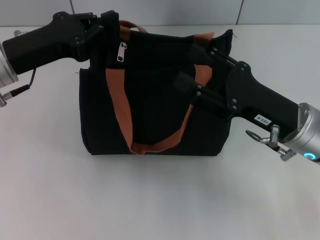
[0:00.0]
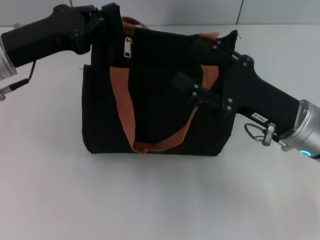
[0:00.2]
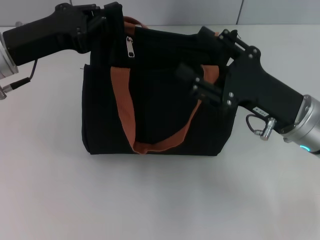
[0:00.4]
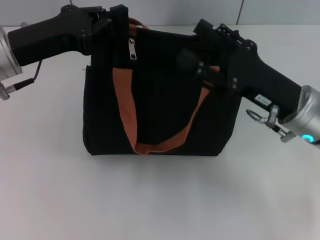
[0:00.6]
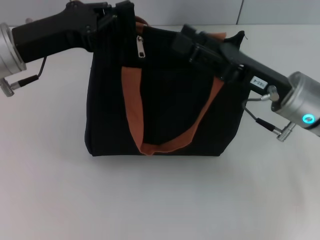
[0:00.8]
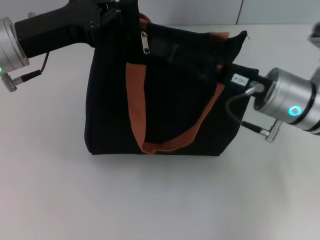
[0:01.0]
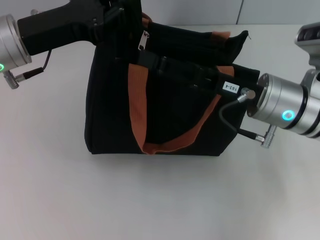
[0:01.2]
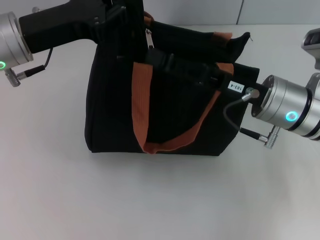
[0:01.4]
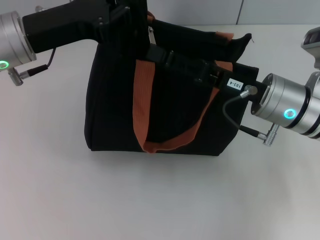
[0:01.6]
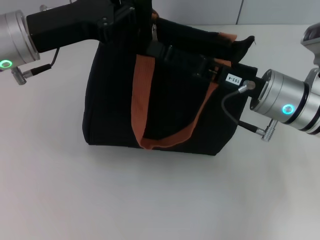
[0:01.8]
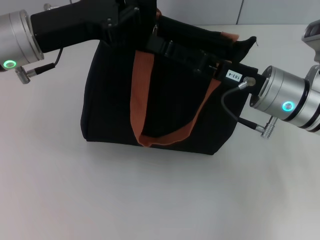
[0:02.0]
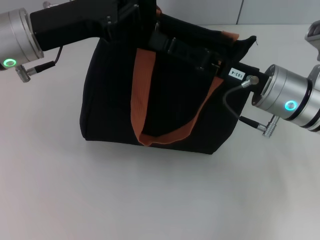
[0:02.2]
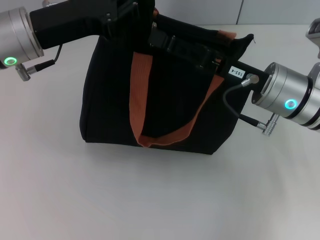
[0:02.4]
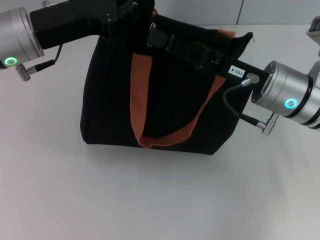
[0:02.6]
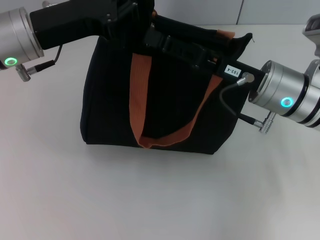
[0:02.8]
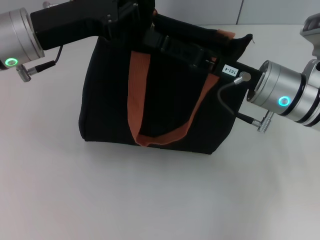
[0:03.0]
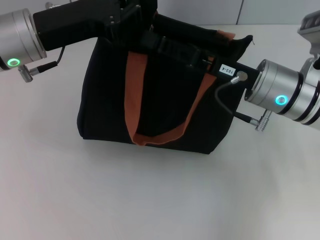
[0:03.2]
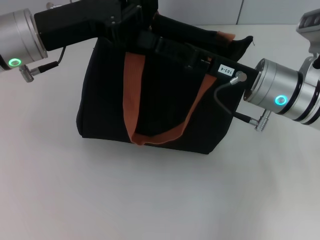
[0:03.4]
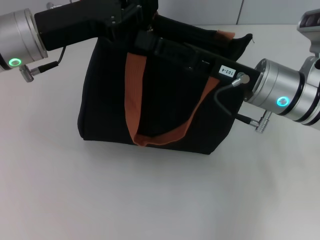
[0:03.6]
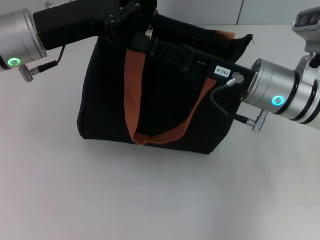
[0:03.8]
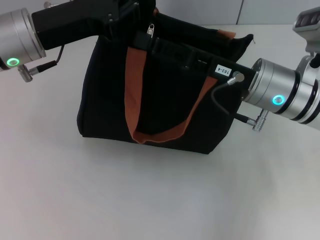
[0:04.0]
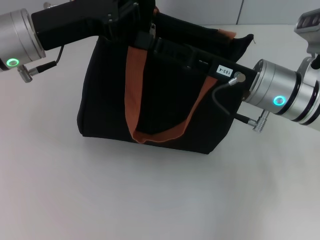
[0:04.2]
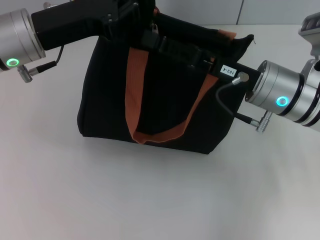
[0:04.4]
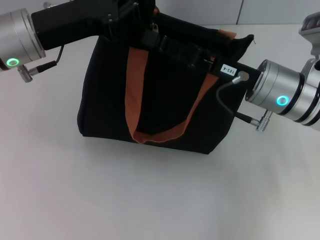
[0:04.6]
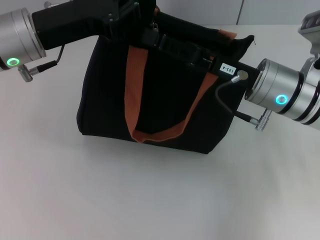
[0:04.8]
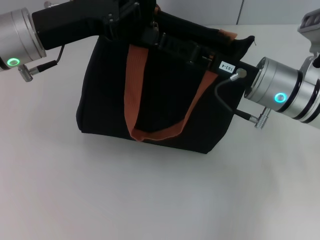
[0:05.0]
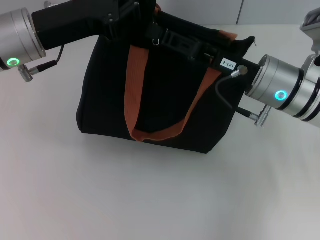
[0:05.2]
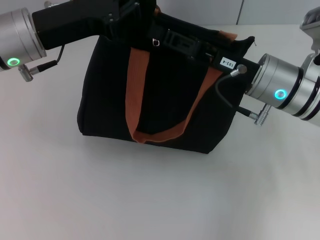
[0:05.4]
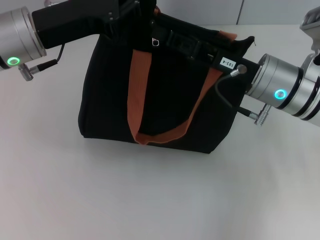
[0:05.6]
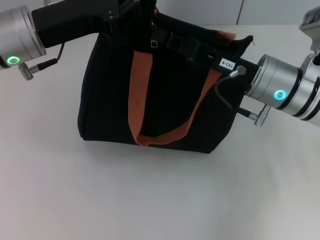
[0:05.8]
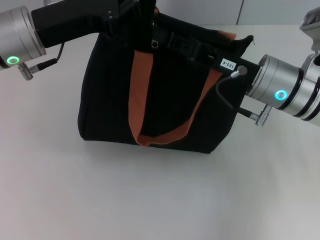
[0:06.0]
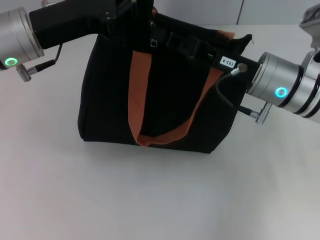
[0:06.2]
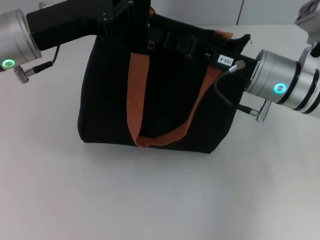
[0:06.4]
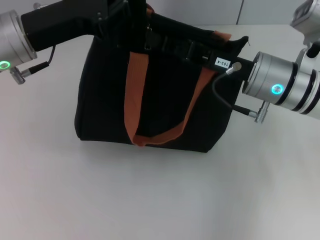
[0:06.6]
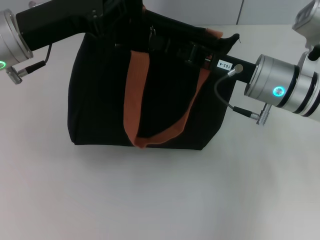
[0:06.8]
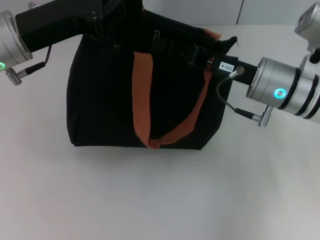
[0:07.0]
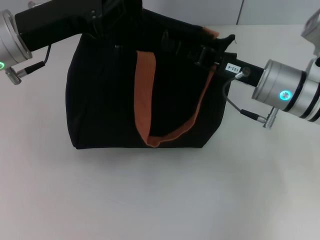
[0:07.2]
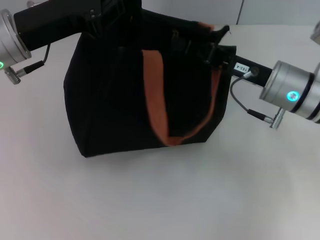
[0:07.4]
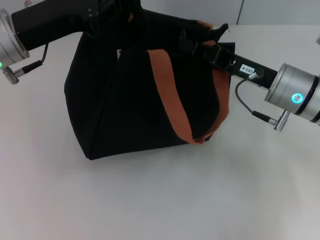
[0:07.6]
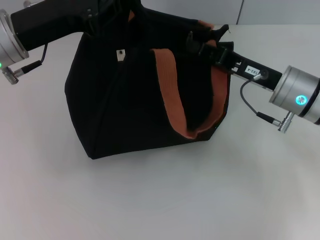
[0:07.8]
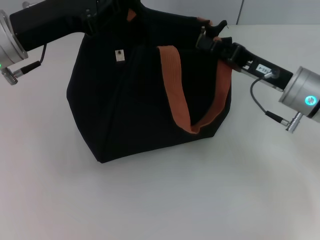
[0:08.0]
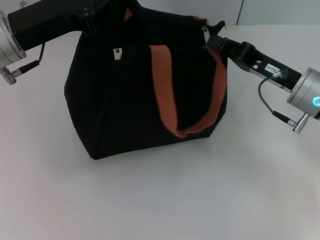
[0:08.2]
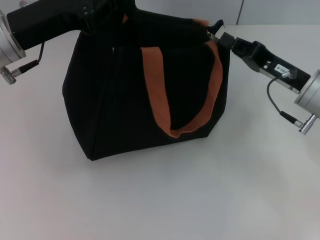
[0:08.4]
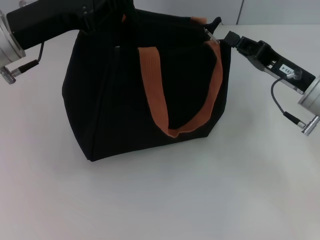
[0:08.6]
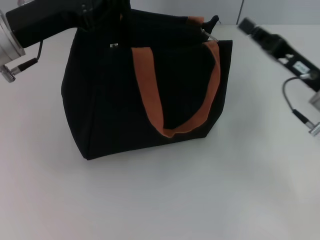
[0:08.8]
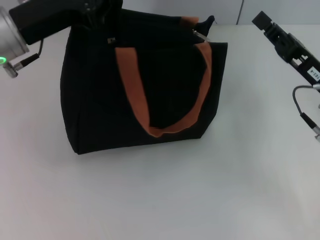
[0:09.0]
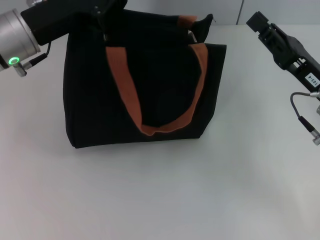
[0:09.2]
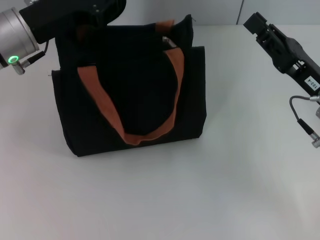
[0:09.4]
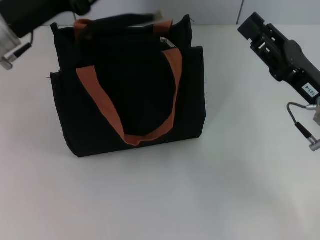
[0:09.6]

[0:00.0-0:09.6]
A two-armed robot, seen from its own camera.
Step, 0:00.0 to 0:08.6: Pull up the zipper with your right hand.
Step, 0:08.8 to 0:09.6: Grab the zipper with your left hand.
0:00.0 to 0:01.6: The right gripper moves approximately 5 cm.
0:01.6 to 0:03.2: The grippers move only a little.
0:03.2 to 0:04.8: The two grippers keep their place.
0:04.8 to 0:06.4: The right gripper closes up.
0:06.4 to 0:08.0: The right gripper is displaced to the right by about 5 cm.
0:08.0 to 0:09.6: The right gripper is displaced backward by approximately 5 cm, and opens its fingers.

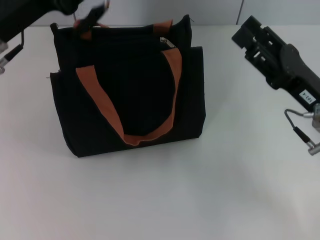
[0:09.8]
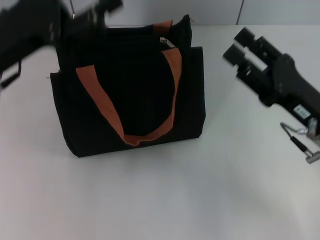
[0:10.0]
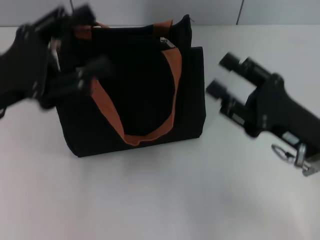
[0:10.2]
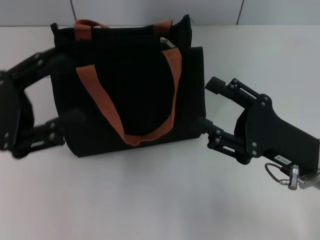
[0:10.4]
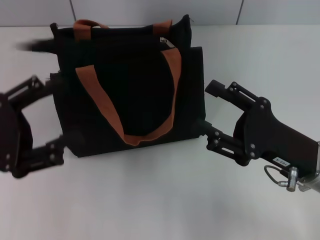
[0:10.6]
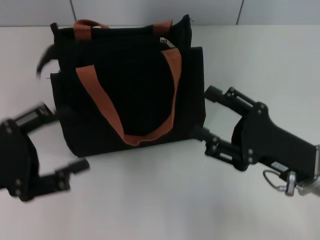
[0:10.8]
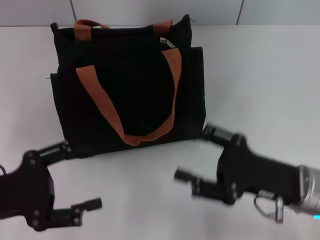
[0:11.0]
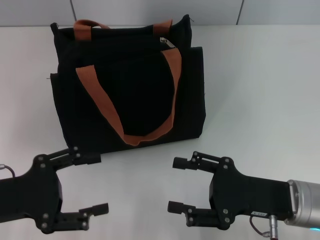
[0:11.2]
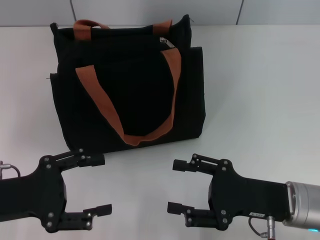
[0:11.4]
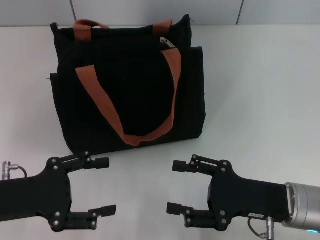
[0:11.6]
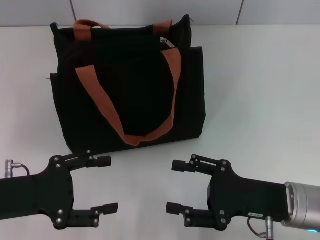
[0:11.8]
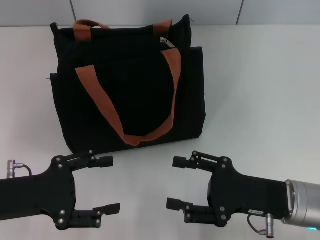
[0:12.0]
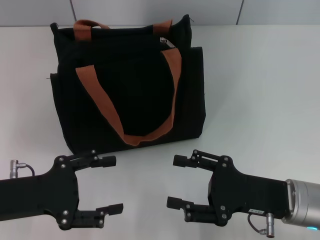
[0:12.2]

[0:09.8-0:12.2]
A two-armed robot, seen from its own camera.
0:09.8 to 0:11.0: The left gripper travels backward and downward by approximately 15 cm, and opens. The right gripper is displaced backward by some 5 cm, and opens.
0:11.0 to 0:12.2: There are only small adjustments of the grippers.

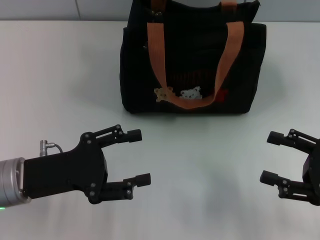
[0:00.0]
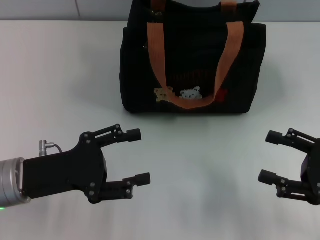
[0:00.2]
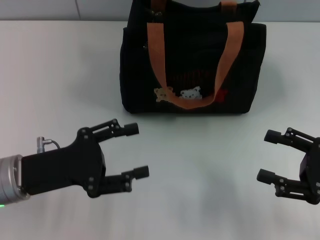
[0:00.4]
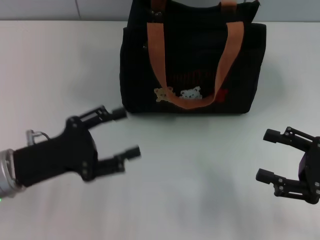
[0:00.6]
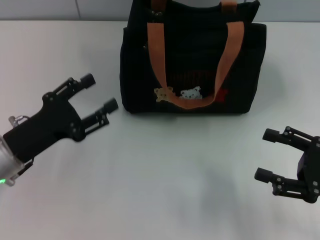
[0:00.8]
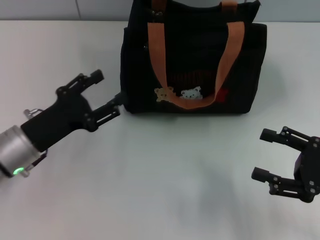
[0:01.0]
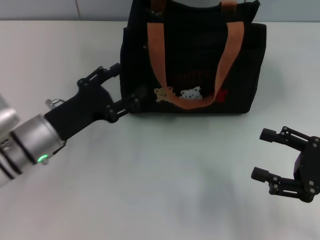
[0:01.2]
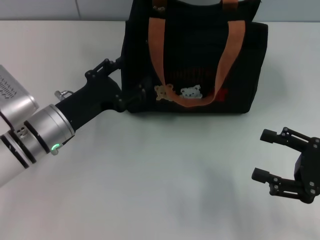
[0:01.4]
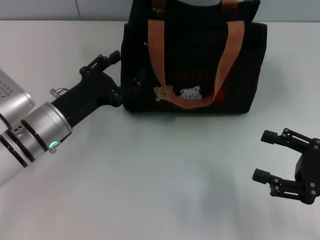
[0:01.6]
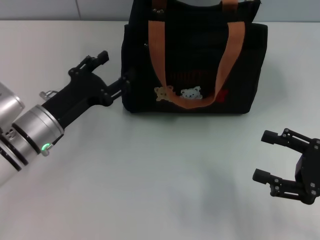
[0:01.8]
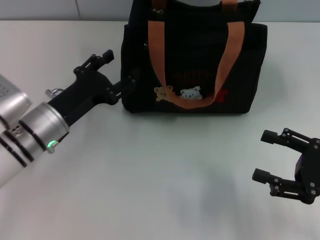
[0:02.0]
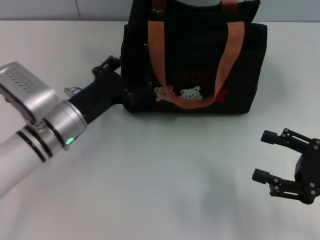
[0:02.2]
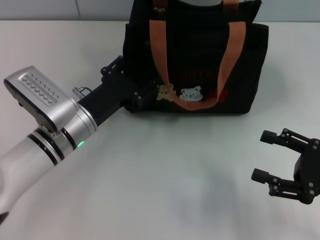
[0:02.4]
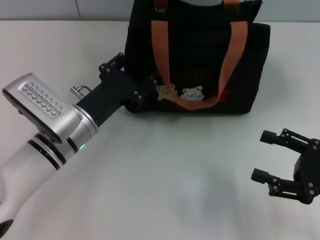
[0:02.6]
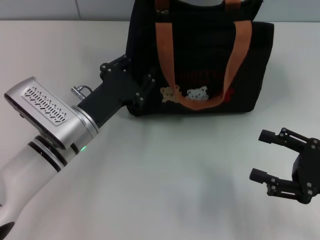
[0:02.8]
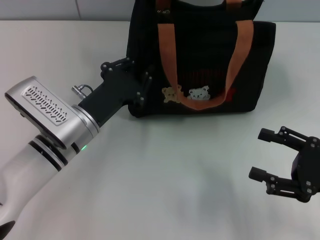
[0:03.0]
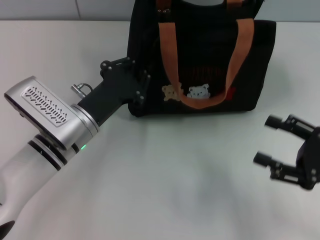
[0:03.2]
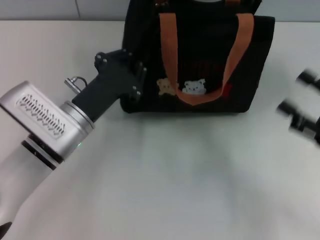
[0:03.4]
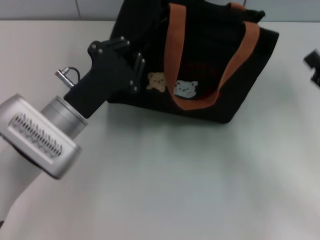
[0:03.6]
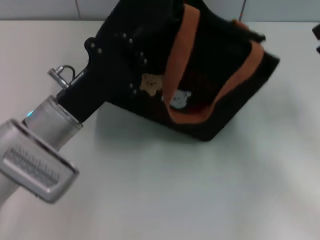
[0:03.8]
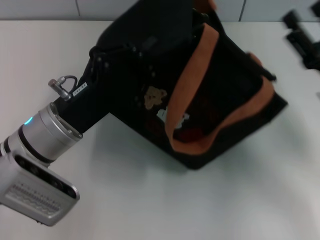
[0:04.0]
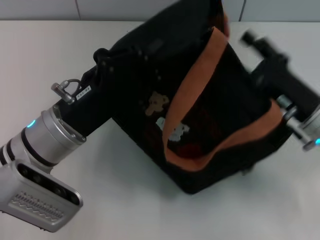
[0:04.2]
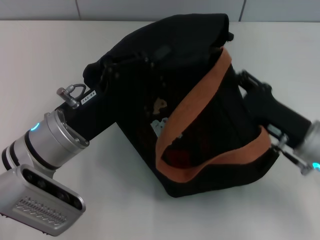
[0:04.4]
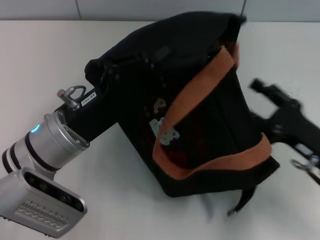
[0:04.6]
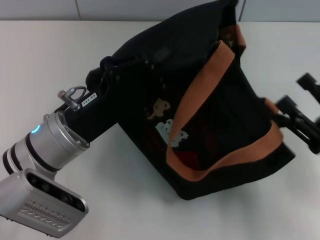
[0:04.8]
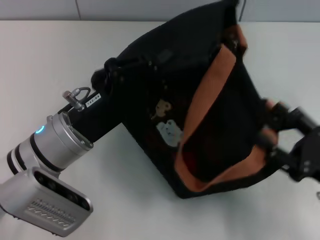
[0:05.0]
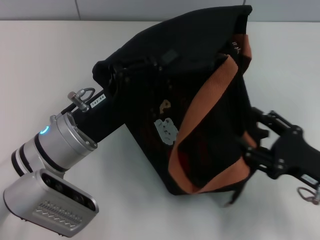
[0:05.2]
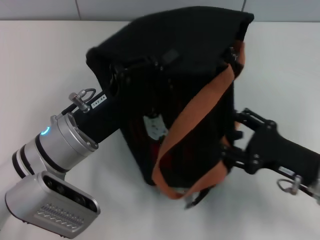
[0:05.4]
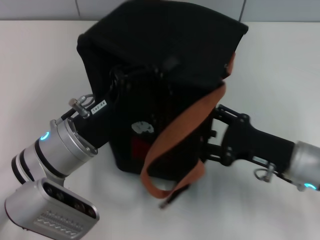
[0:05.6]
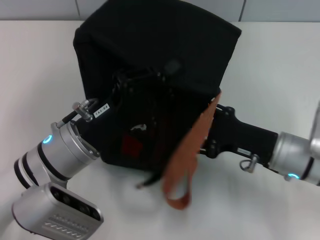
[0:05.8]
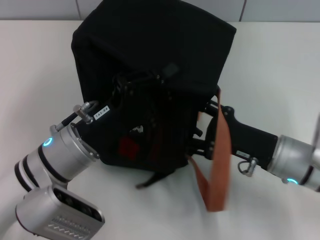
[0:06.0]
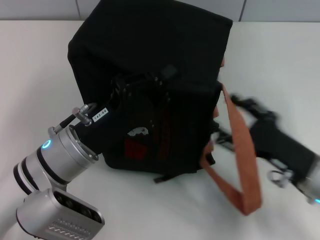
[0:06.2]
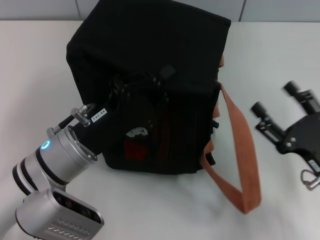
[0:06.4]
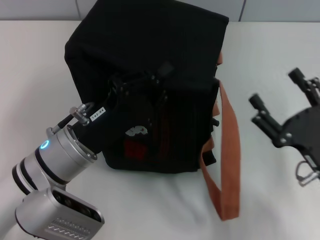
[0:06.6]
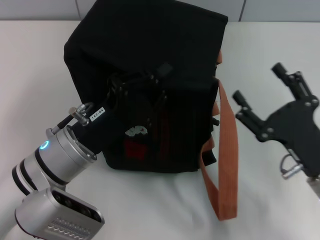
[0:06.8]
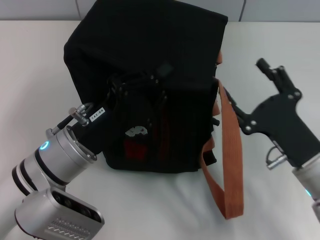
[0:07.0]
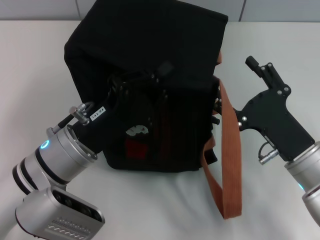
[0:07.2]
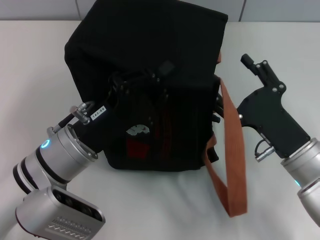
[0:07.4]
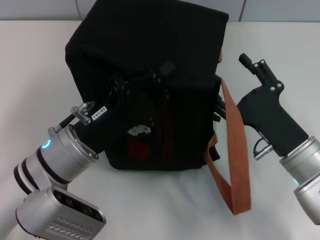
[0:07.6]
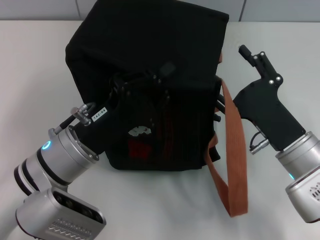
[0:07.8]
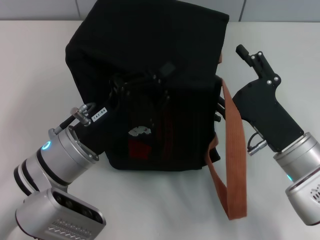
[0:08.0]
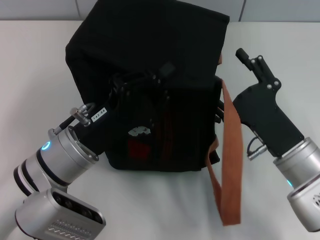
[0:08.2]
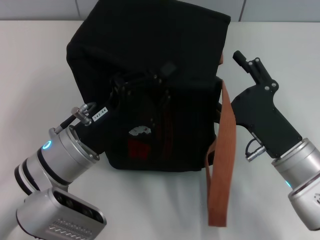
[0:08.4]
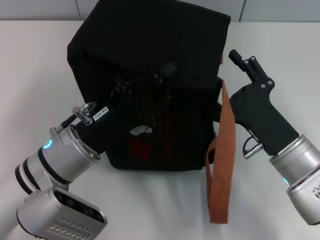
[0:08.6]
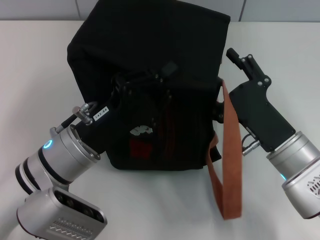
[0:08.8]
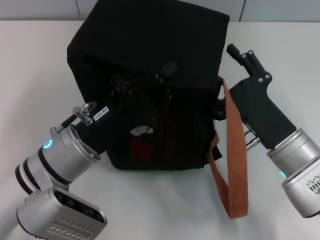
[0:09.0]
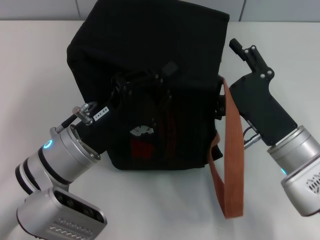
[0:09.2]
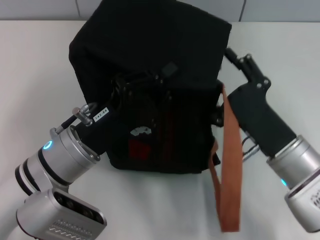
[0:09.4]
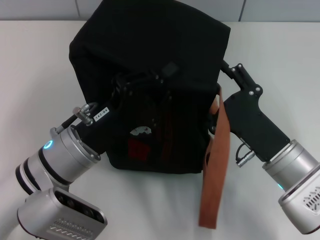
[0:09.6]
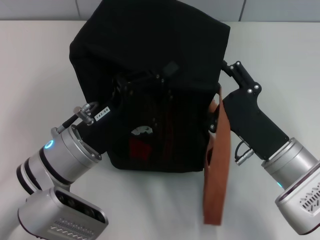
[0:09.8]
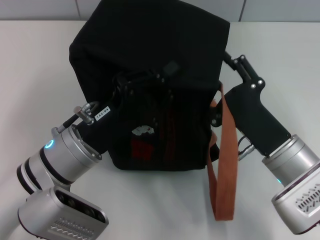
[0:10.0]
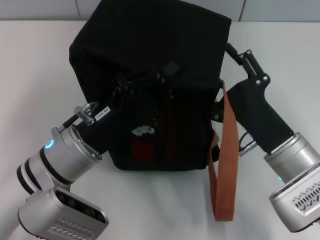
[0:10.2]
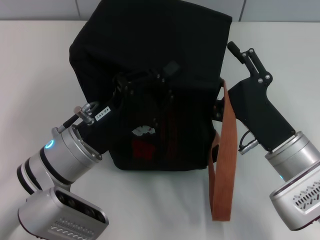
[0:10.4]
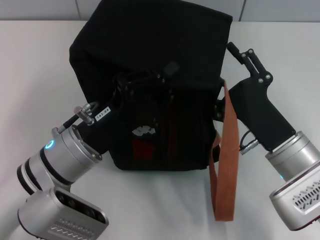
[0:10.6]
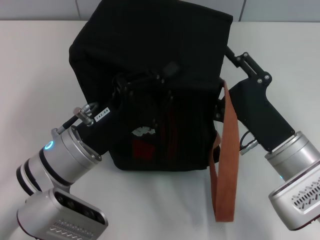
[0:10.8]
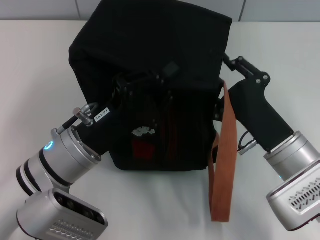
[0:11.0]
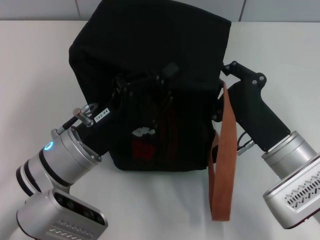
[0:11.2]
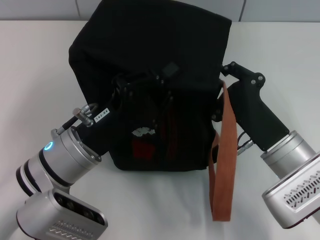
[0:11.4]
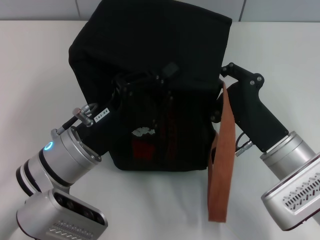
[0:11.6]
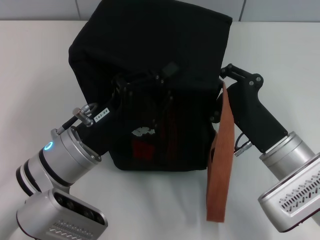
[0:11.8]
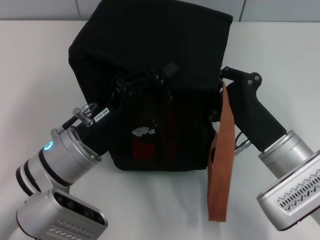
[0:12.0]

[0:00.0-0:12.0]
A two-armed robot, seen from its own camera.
0:00.0 to 0:01.6: The left gripper shifts about 5 cm forward.
0:01.6 to 0:03.0: The left gripper closes.
0:03.0 to 0:04.4: The left gripper shifts by roughly 5 cm. Meanwhile the right gripper heads to the left and forward, covering about 10 cm.
0:04.4 to 0:06.0: The right gripper moves roughly 5 cm to the right and comes back.
0:07.6 to 0:10.4: The grippers make only small movements.
0:10.4 to 0:12.0: The right gripper closes its fingers.
